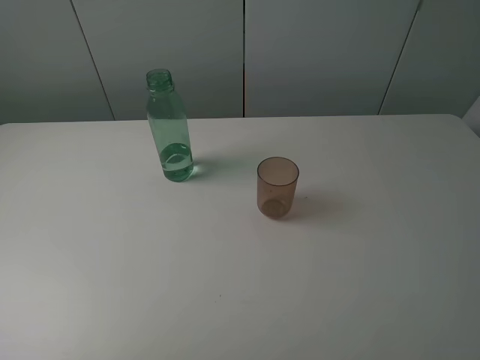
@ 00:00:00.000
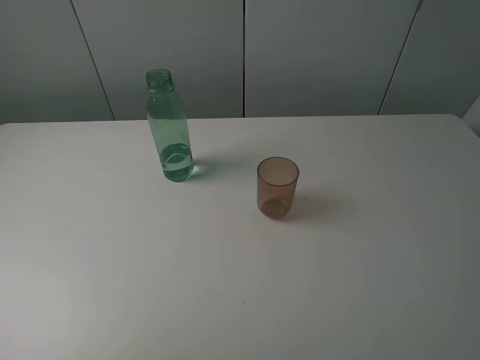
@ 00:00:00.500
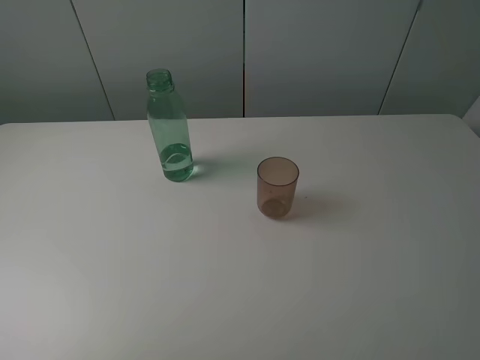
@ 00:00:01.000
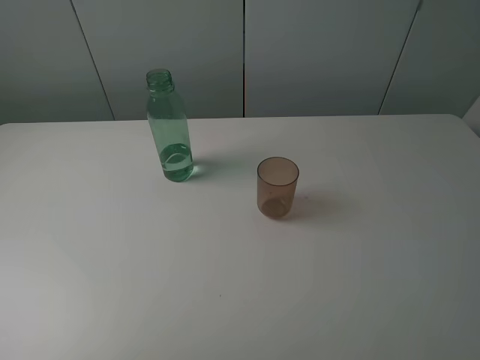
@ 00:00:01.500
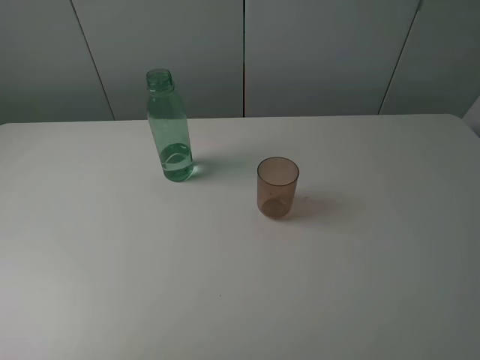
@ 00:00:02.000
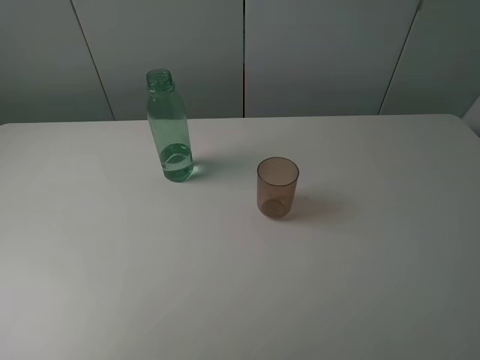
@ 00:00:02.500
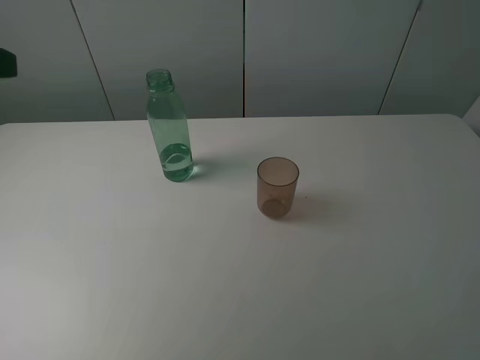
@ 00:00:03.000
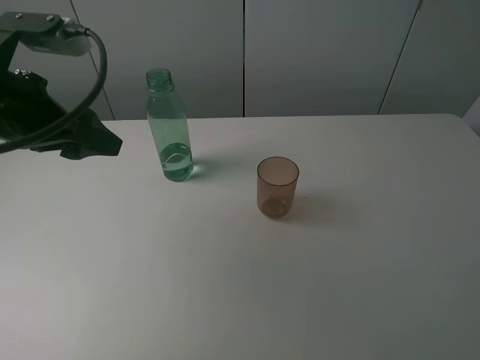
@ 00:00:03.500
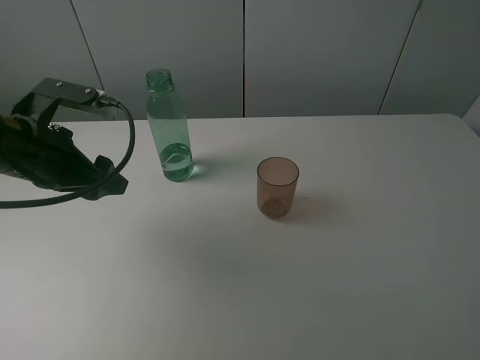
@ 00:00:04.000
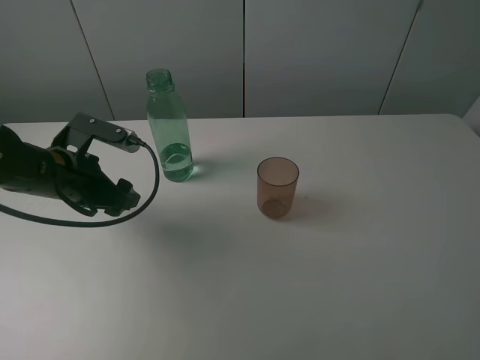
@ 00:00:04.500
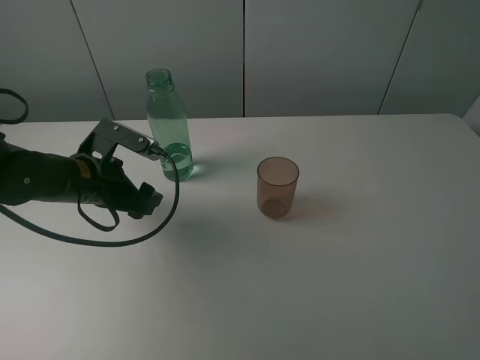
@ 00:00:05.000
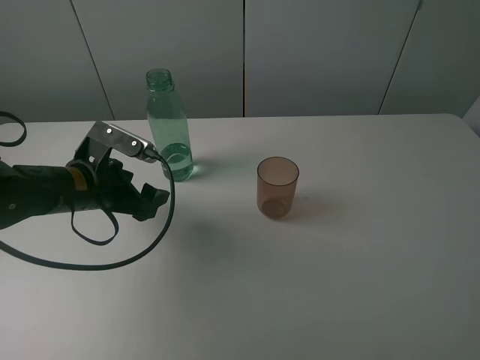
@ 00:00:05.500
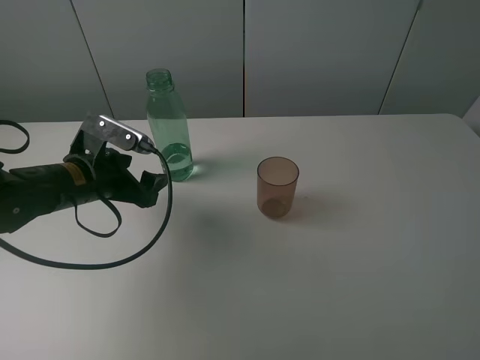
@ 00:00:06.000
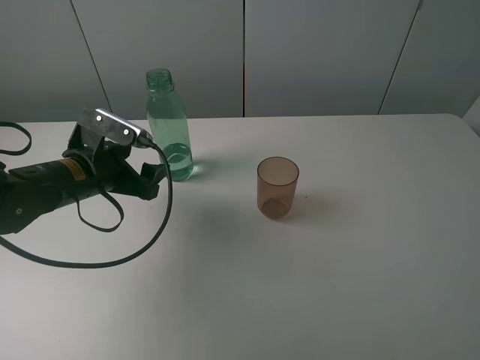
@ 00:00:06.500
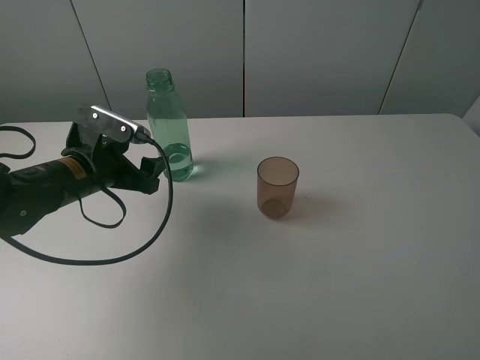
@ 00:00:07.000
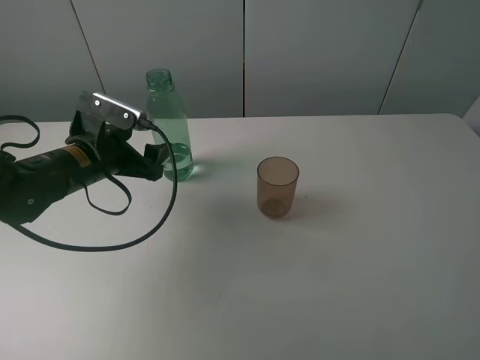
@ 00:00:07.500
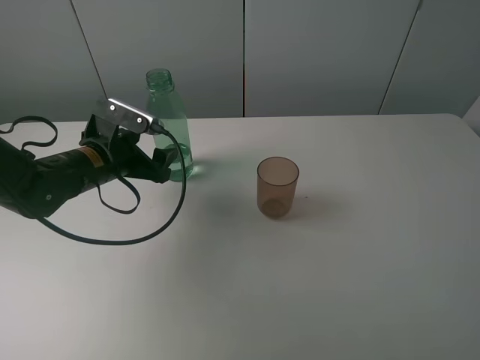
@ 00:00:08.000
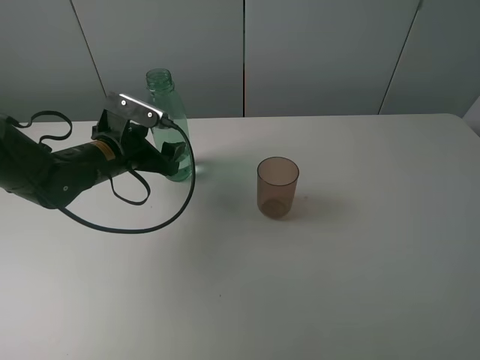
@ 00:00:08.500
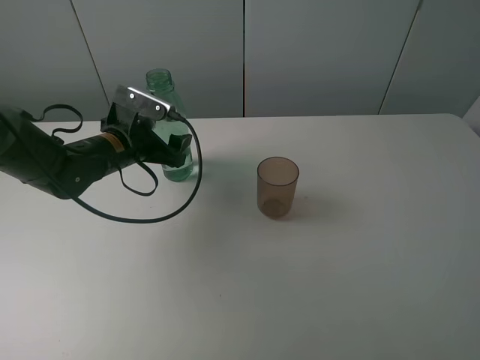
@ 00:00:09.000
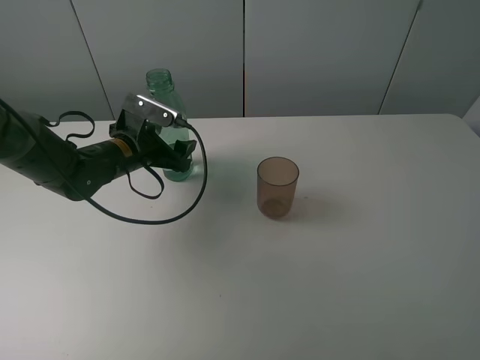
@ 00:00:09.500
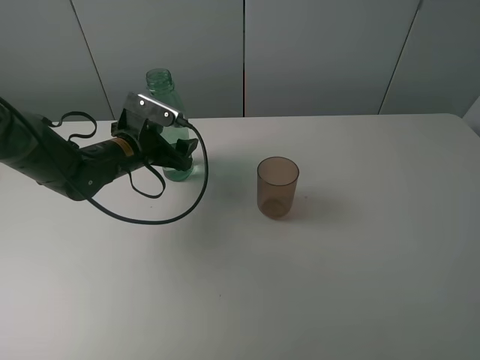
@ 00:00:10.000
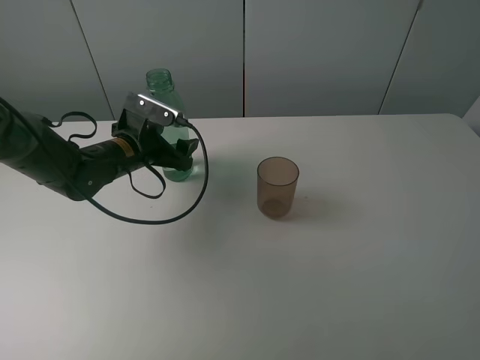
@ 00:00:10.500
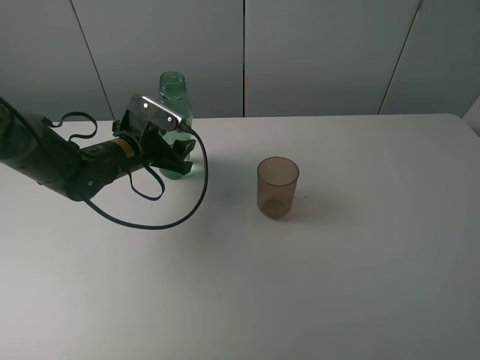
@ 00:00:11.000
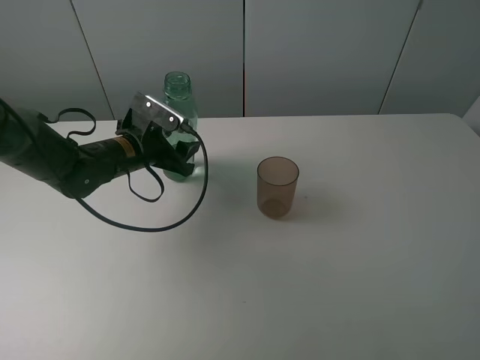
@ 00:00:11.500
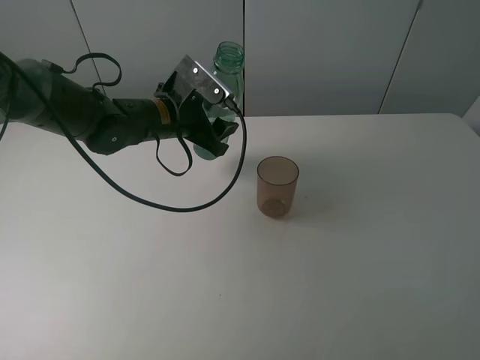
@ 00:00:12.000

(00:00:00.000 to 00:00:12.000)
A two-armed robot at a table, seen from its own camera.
Task of the whole recording: pick up the bottle filled with water and pour it into the pink cup.
Step, 00:00:00.000 - 00:00:11.000: Grasp the green bottle with the left gripper.
00:00:02.000 - 00:00:04.000: The left gripper heads forward and downward, covering roughly 30 cm.
00:00:04.000 - 00:00:06.000: The left gripper shifts some 10 cm downward.
00:00:06.000 - 00:00:08.000: The grippers make only small movements.
00:00:08.000 - 00:00:10.000: The left gripper shifts by some 5 cm.
00:00:10.000 - 00:00:12.000: The left gripper moves to the right and upward, approximately 10 cm, and closes up.

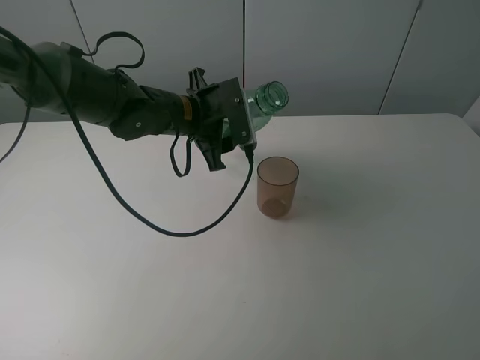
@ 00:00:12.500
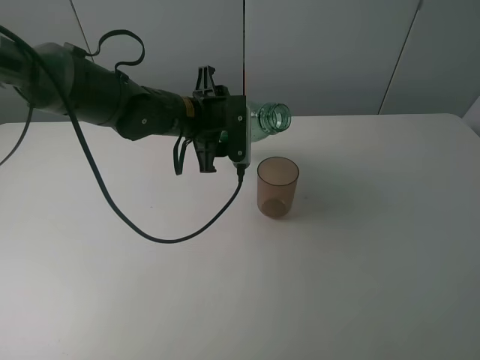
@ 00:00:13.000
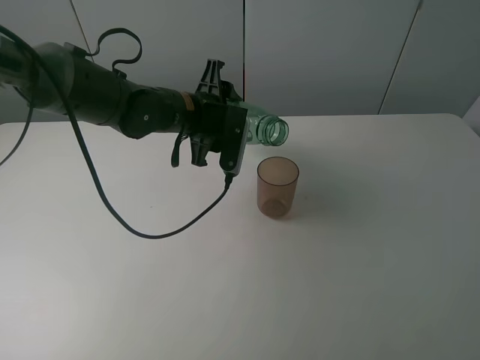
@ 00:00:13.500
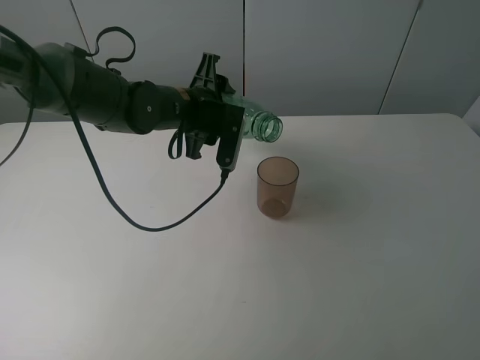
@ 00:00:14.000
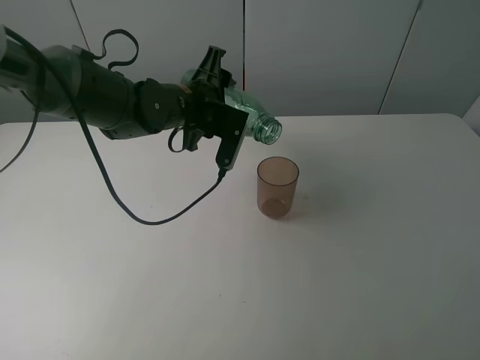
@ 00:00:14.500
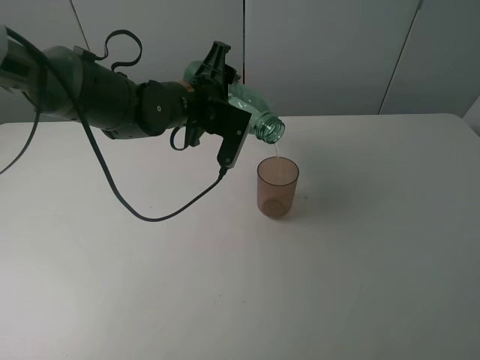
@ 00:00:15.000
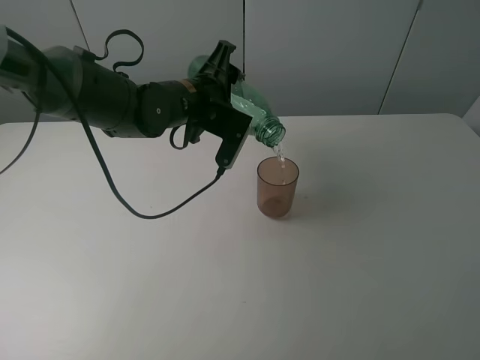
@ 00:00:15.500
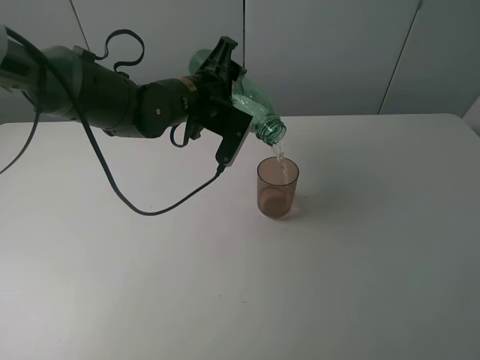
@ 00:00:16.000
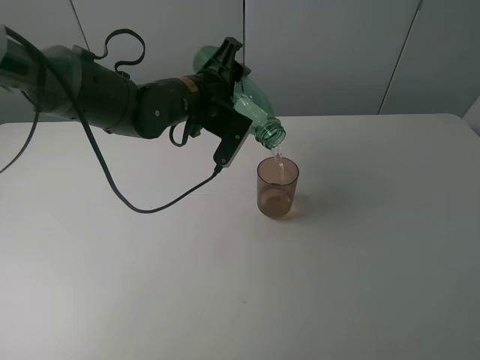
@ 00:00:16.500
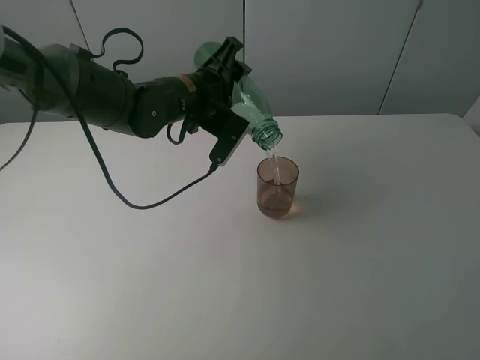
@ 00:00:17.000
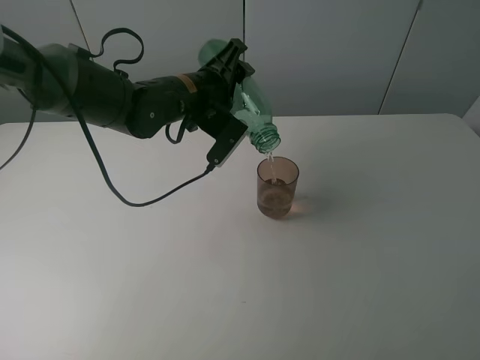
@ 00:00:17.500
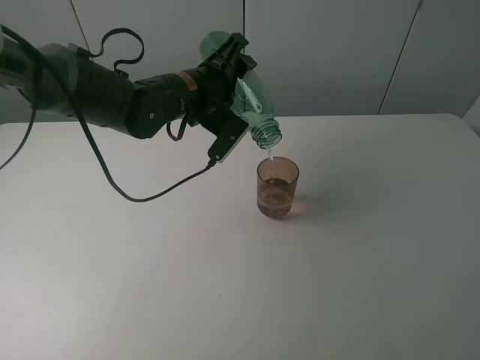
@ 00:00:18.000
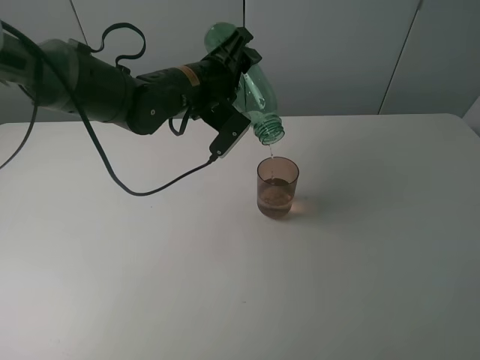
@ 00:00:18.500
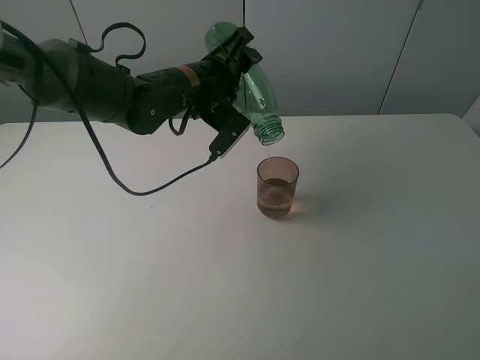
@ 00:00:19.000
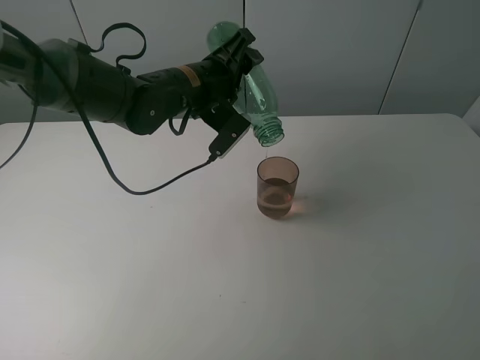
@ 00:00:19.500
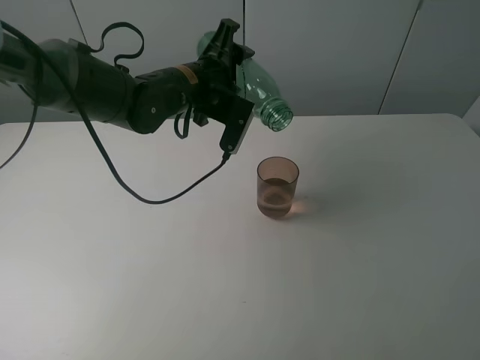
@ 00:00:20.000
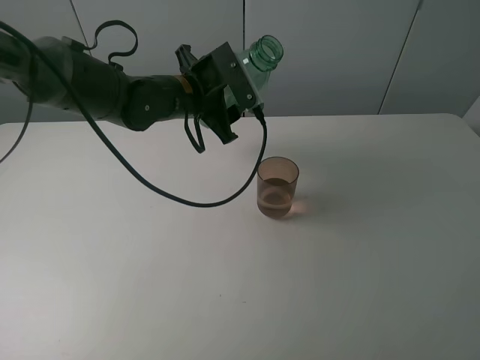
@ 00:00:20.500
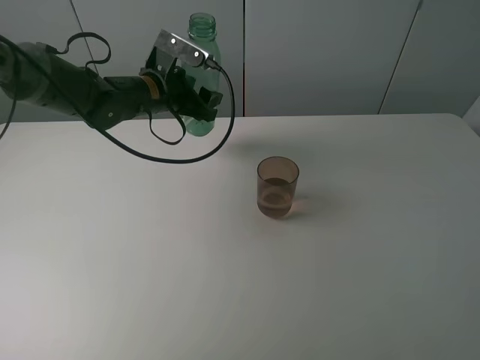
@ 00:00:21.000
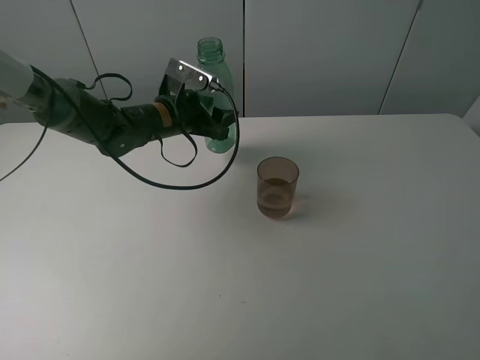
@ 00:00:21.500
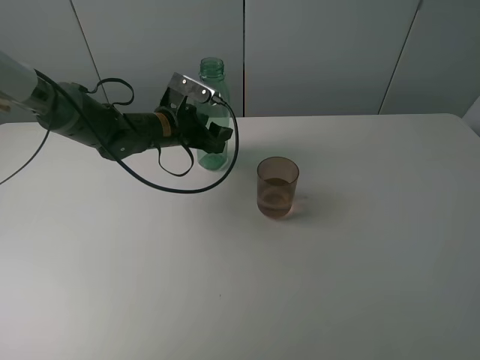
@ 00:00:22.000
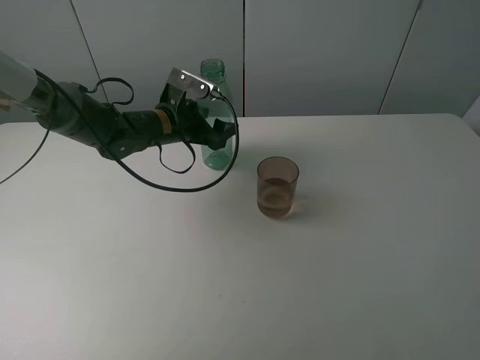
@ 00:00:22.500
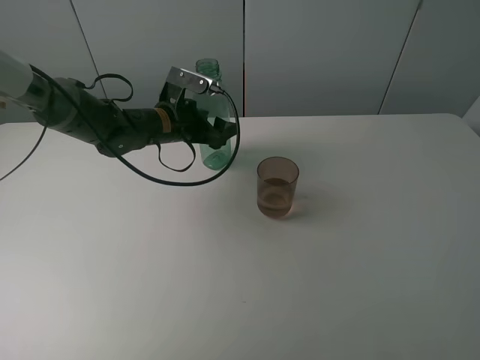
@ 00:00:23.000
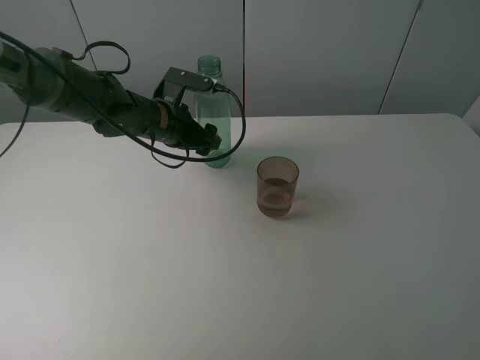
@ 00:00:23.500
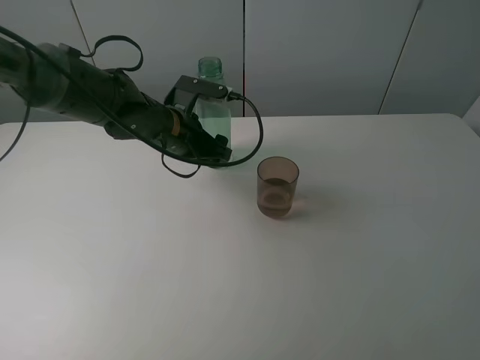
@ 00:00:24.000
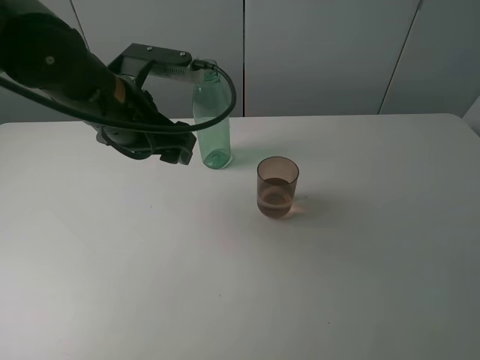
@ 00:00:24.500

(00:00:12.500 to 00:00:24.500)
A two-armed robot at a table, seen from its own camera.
Task of the whole recording: pick up the bottle filled with water and pour it into the pink cup.
Step, 00:00:12.500 - 00:00:20.000: Pour water from green bottle to pink cup with the left gripper.
Step, 00:00:20.500 - 00:00:24.000: Place the green bottle with the left gripper.
00:00:14.500 - 00:00:16.500: The grippers stay close to where they were, moving slightly.
00:00:16.500 - 00:00:18.500: The grippers move only a little.
00:00:20.500 - 00:00:22.500: The left gripper shifts some 5 cm downward, and opens up.
00:00:22.500 - 00:00:24.500: The left gripper heads backward and upward, covering approximately 20 cm.

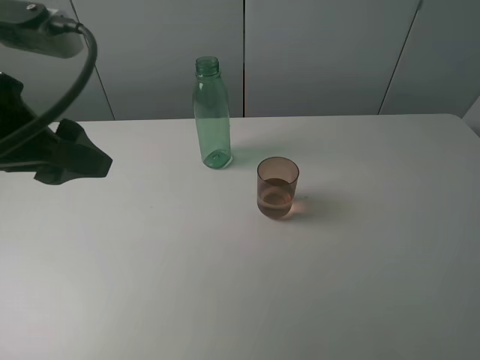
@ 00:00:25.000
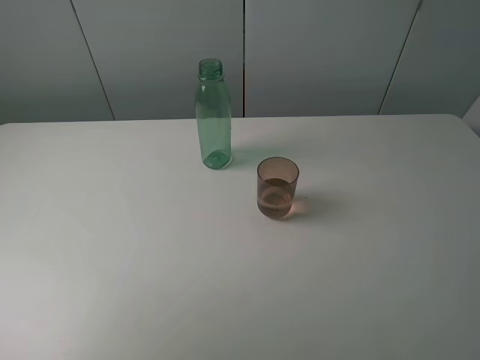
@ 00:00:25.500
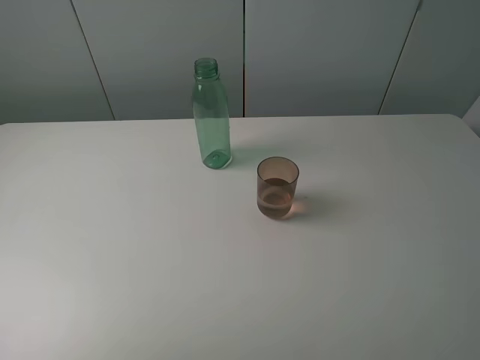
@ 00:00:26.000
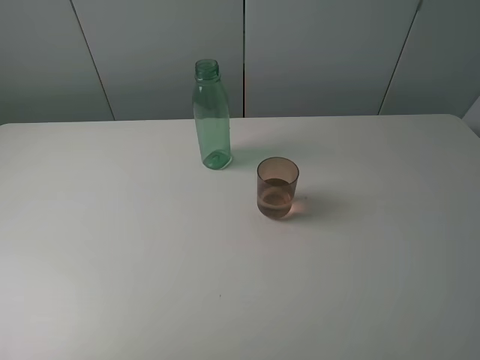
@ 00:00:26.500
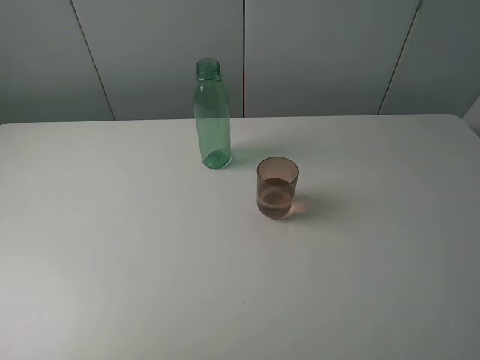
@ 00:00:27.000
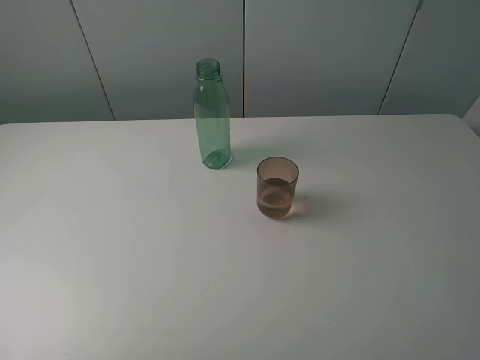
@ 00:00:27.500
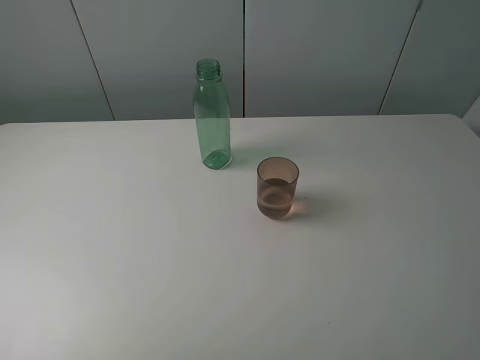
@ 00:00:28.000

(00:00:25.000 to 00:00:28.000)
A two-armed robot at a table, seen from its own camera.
Task of the whole recording: pick up the bottle filled with water and pour it into the pink cup.
00:00:25.000 - 00:00:26.500: The left gripper is displaced backward and to the left by about 20 cm.
00:00:26.500 - 00:00:28.000: Neither gripper changes place.
